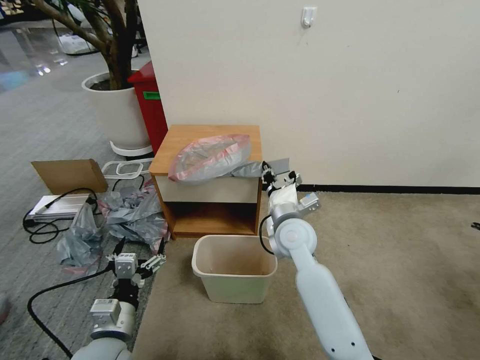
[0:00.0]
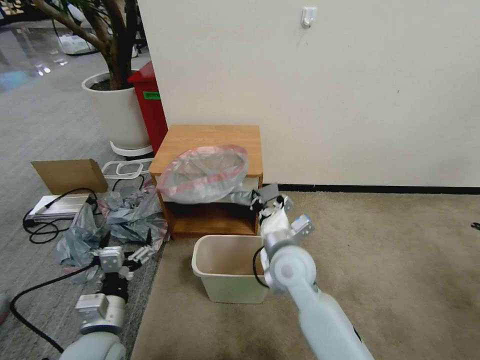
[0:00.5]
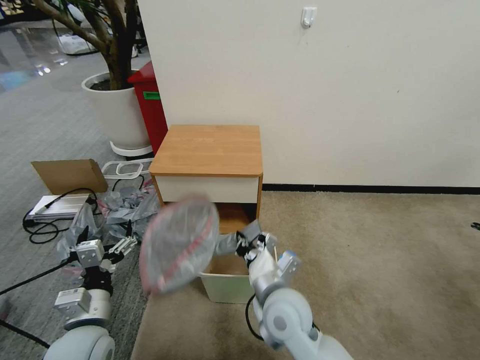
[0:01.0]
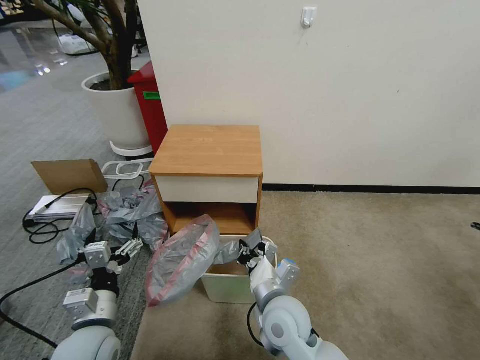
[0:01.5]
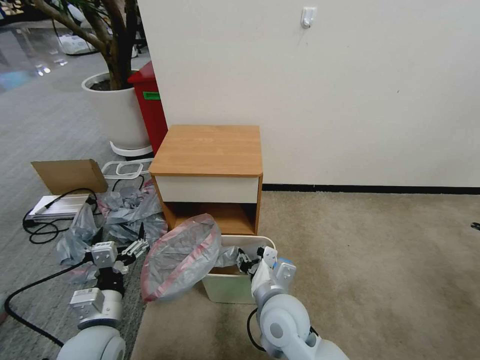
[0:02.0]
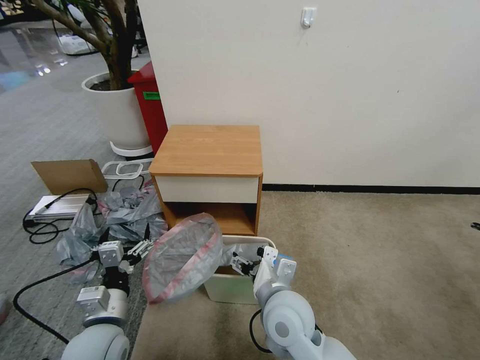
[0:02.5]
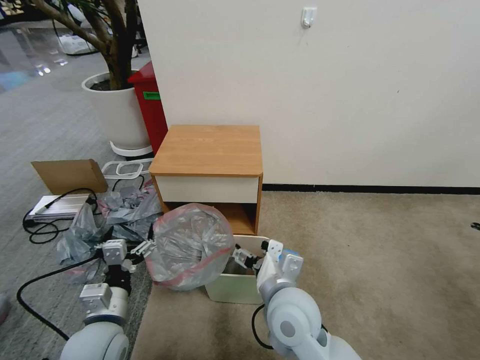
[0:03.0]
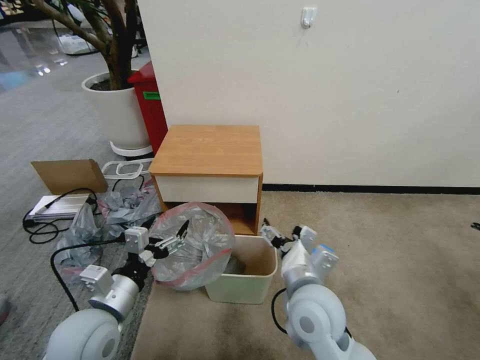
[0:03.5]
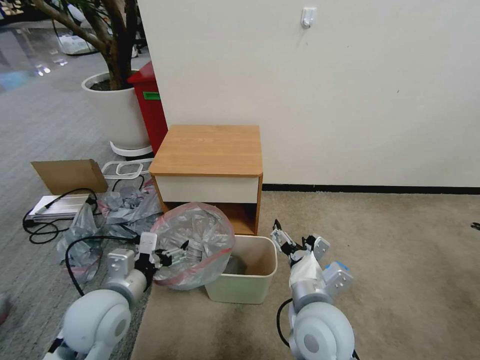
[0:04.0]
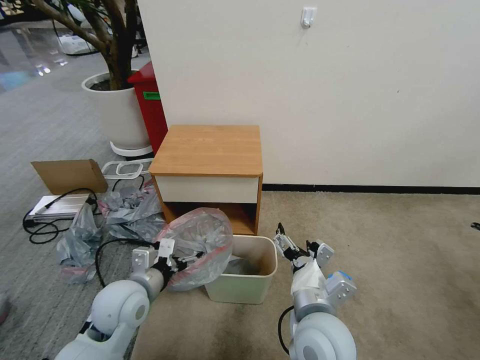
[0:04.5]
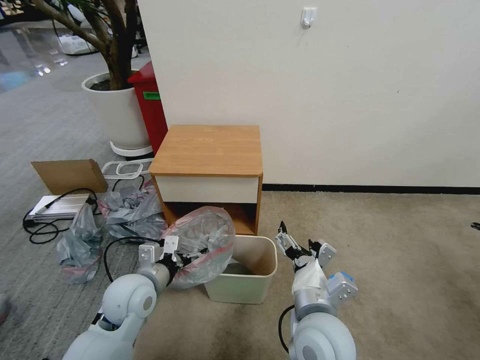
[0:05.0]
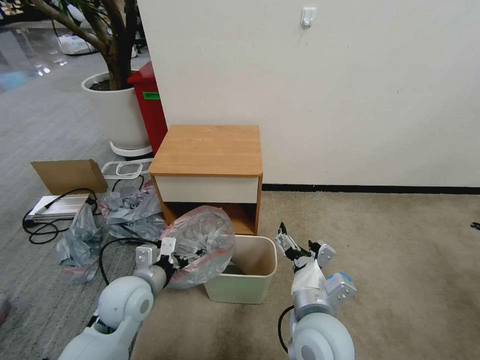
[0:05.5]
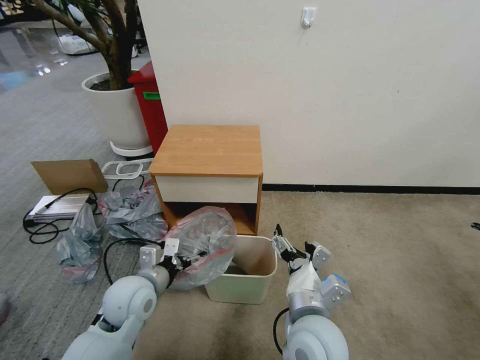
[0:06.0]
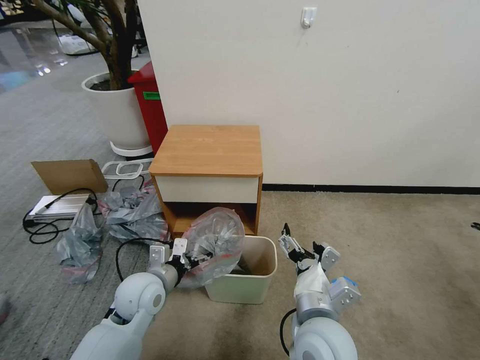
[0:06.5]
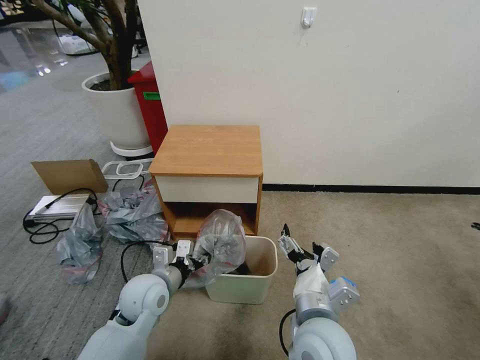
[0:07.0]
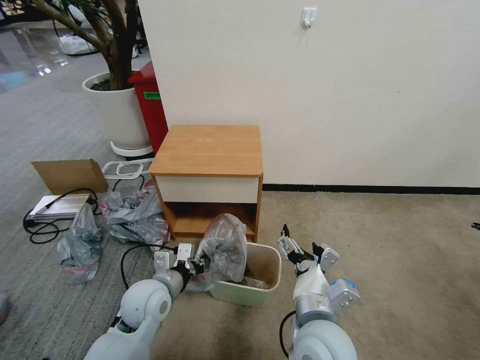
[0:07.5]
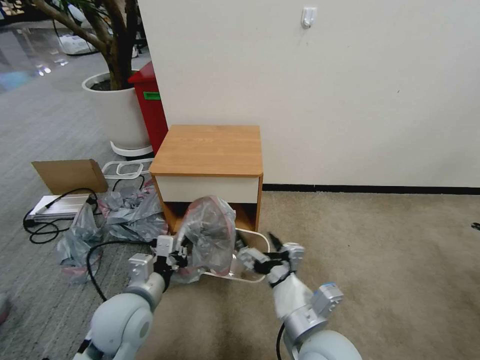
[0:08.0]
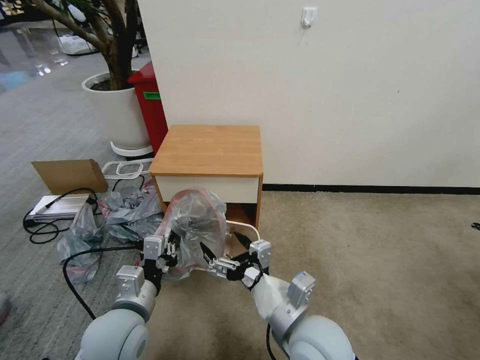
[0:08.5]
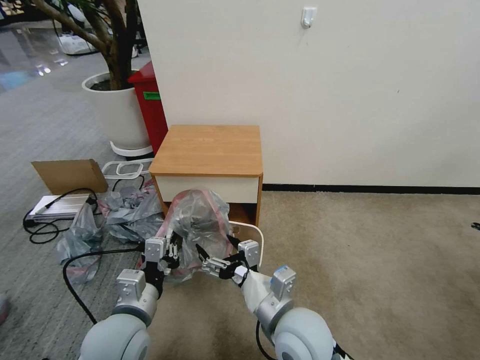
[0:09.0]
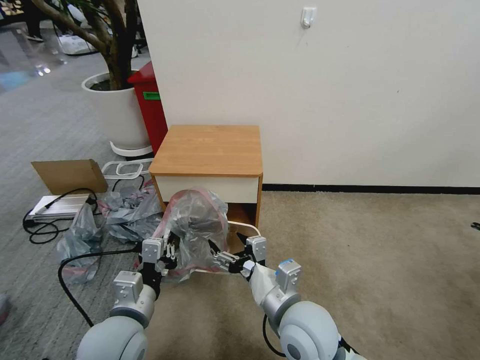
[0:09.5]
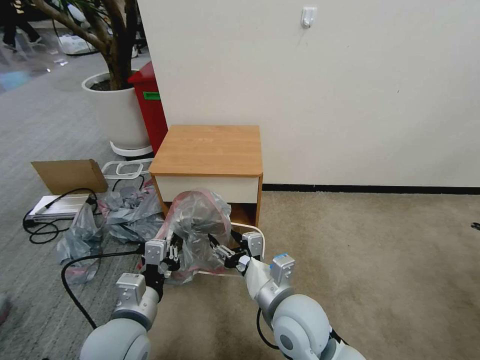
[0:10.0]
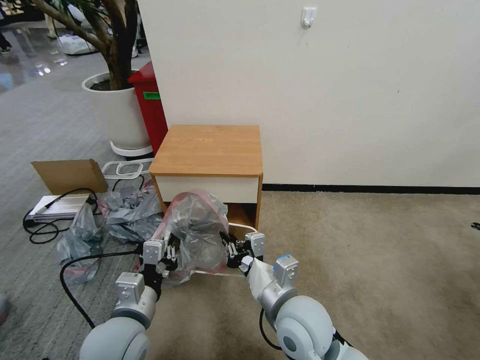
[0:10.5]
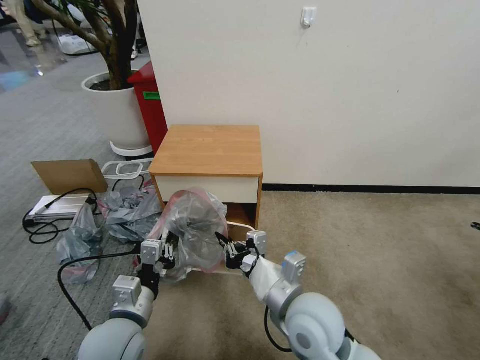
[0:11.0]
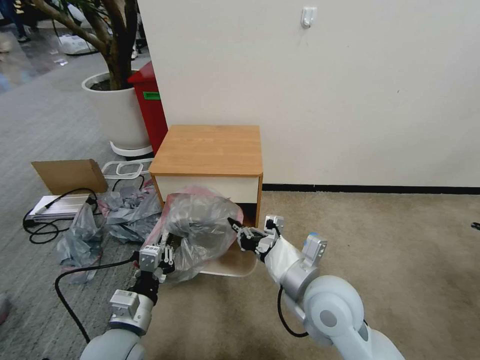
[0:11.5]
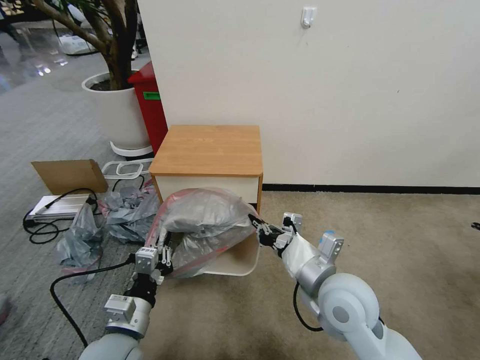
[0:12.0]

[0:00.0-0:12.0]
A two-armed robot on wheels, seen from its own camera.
Task of the whole recording: Pick up the garbage bag from the table and place it over the trash can.
0:00.0 to 0:02.0: The right gripper shifts roughly 15 cm backward, and opens its fingers.
0:02.0 to 0:04.0: The right gripper heads to the right, covering approximately 5 cm, and opens its fingers. The left gripper ends up some 5 cm from where it was.
0:04.0 to 0:06.0: The left gripper shifts by some 5 cm.
0:06.0 to 0:08.0: The left gripper heads backward, covering about 5 cm, and closes its fingers.
0:08.0 to 0:10.0: The right gripper is displaced forward by approximately 5 cm.
0:10.0 to 0:12.0: The right gripper shifts approximately 10 cm to the right, and closes its fingers.

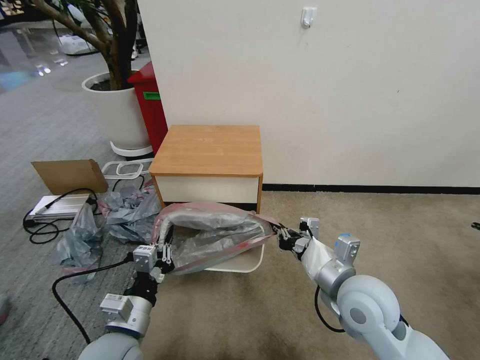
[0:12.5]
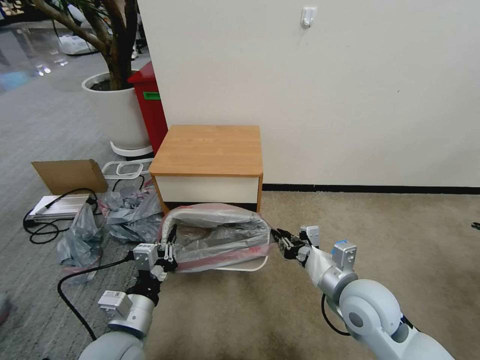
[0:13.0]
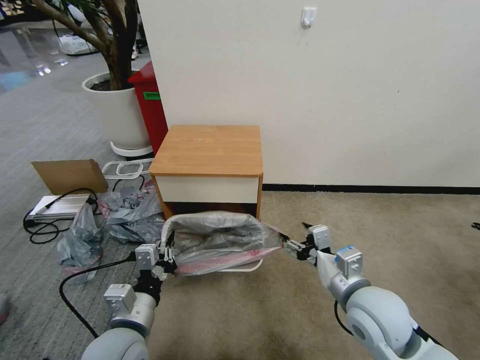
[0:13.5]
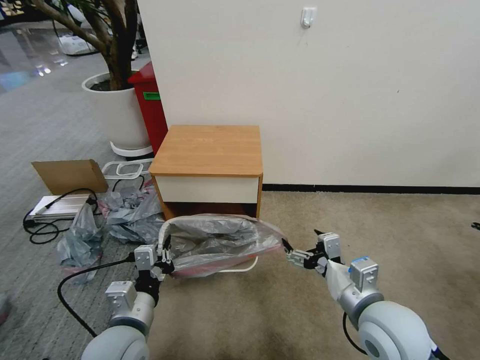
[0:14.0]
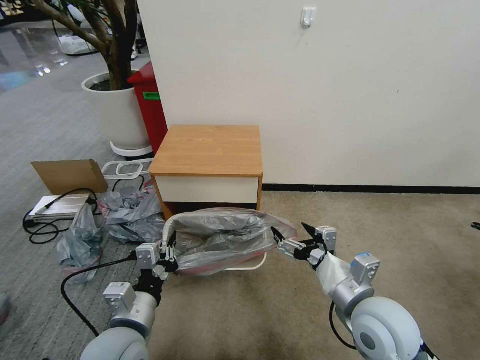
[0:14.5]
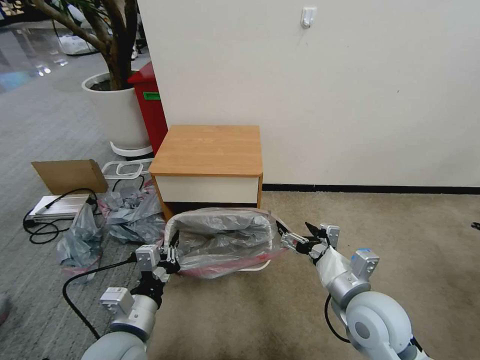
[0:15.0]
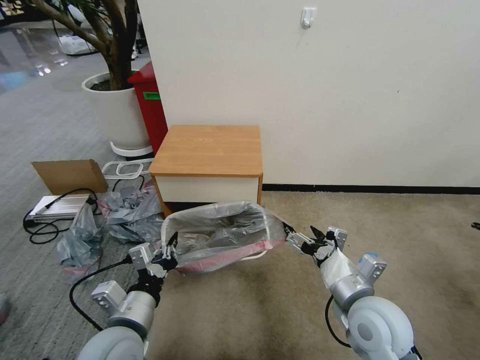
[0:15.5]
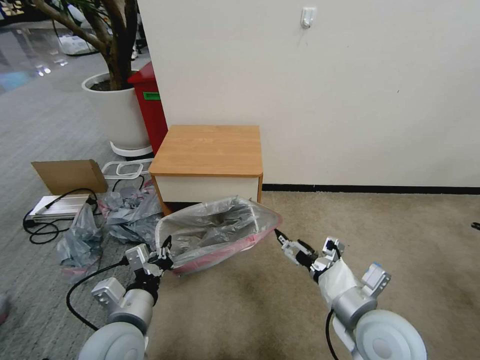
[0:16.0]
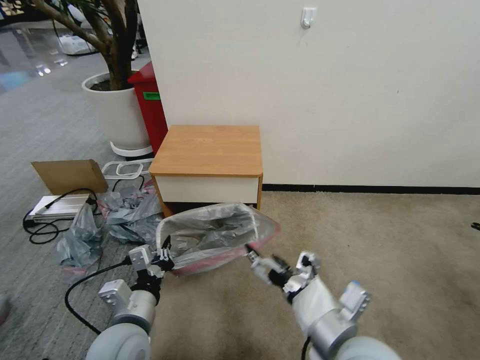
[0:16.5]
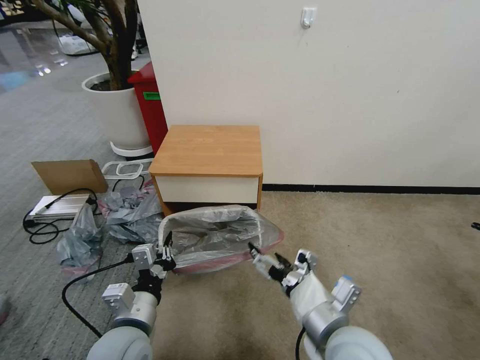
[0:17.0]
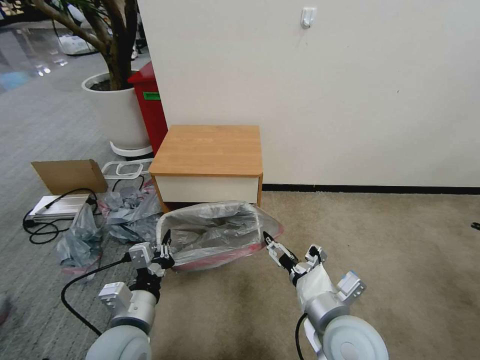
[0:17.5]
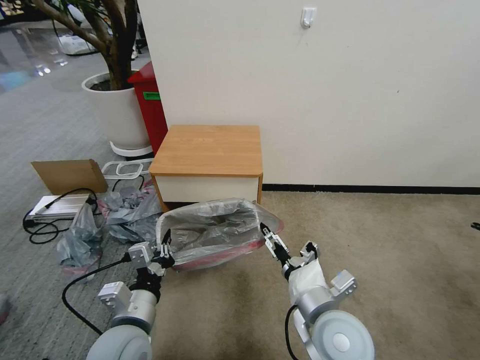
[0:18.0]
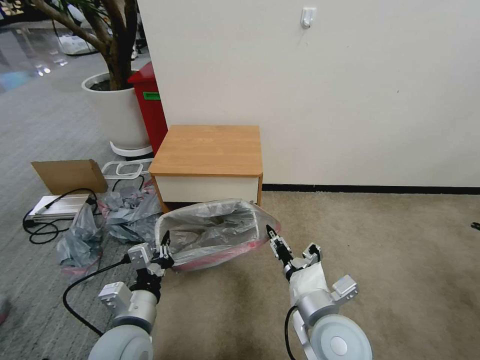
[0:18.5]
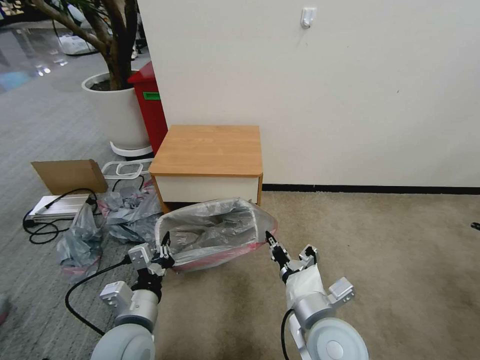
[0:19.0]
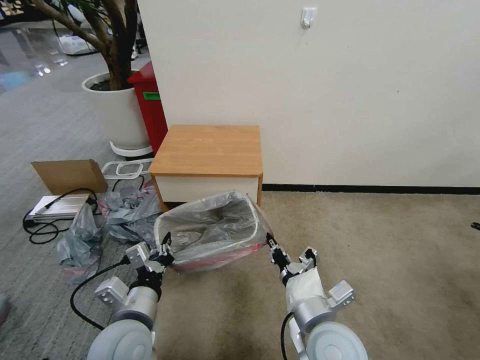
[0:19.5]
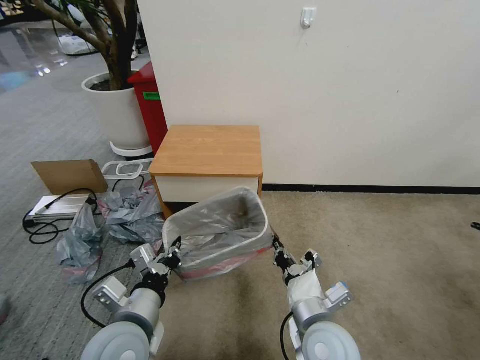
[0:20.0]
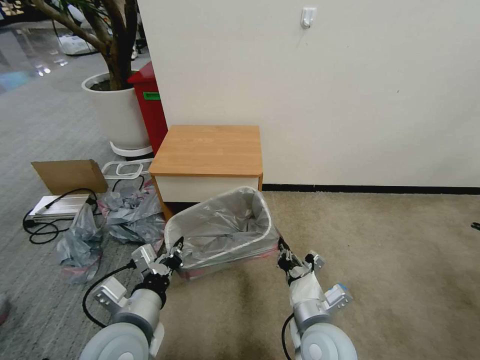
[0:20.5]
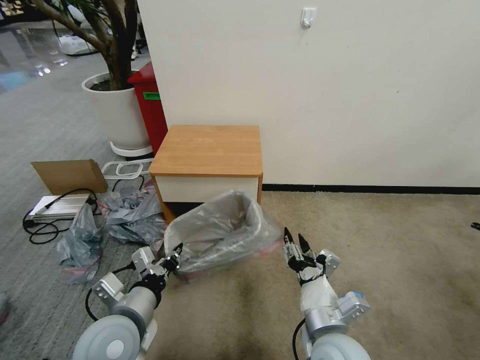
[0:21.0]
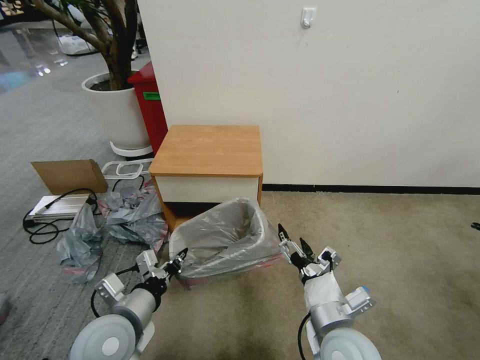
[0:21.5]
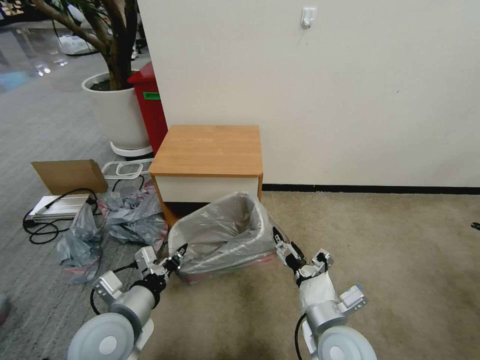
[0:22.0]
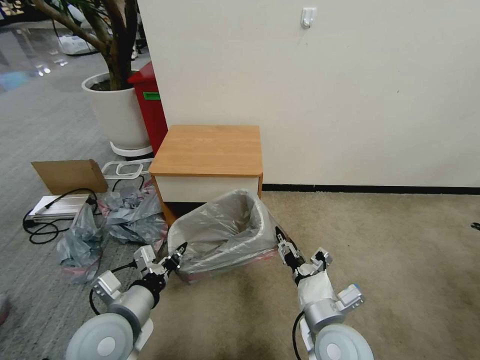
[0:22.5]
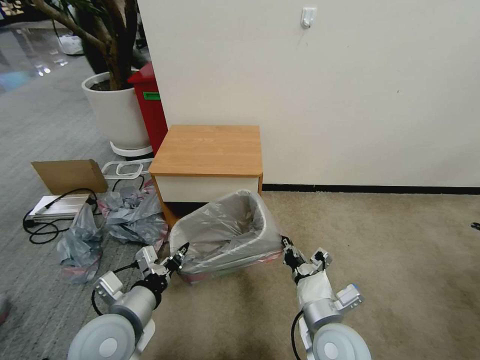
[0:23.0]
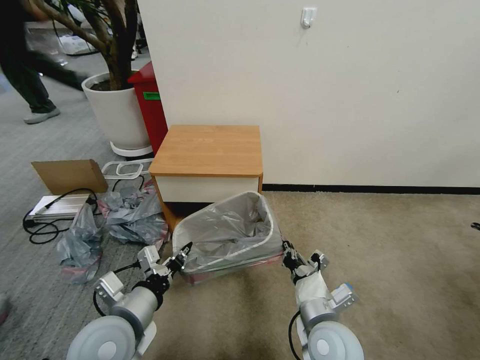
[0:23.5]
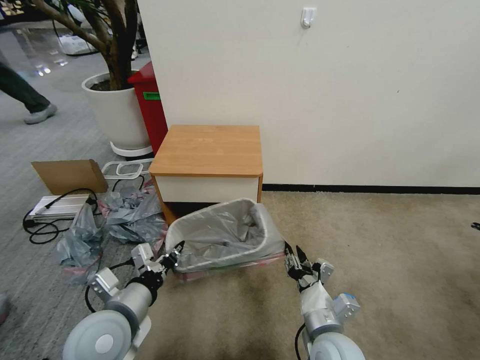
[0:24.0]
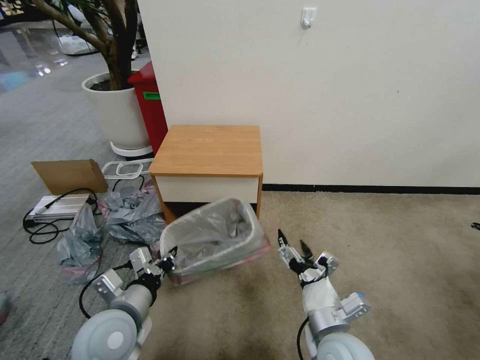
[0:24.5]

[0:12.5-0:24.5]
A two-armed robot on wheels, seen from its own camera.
Task of the whole recording: Pick up the garbage bag from the table and place it over the trash can.
0:12.5 to 0:14.5: The right gripper opens.
0:14.5 to 0:16.5: The right gripper travels backward and to the left by approximately 10 cm.
0:16.5 to 0:18.5: The right gripper moves downward, about 5 cm, and closes up.
0:18.5 to 0:20.5: The right gripper closes up.
0:20.5 to 0:22.5: The right gripper opens up.
0:22.5 to 0:24.5: The right gripper opens its fingers.

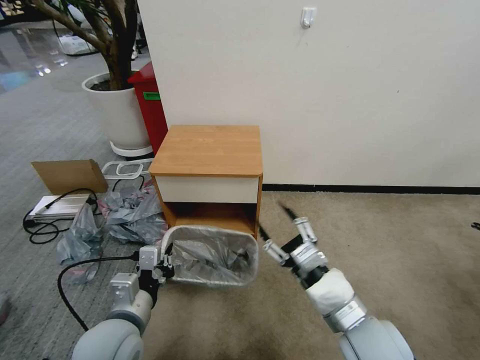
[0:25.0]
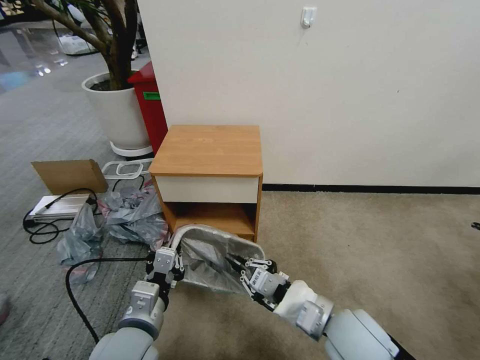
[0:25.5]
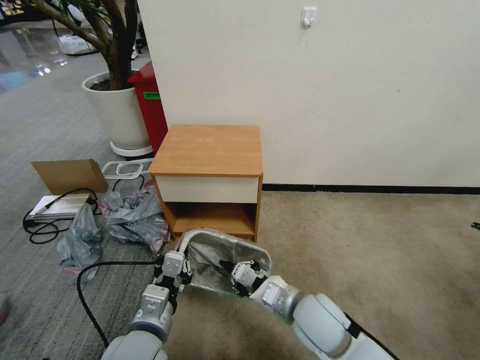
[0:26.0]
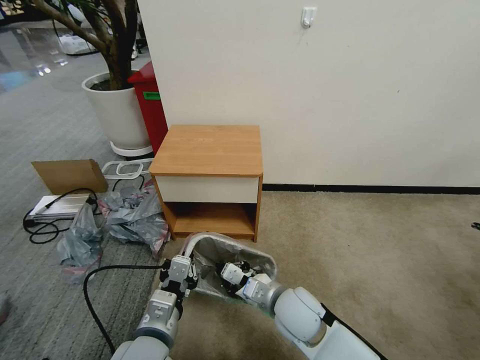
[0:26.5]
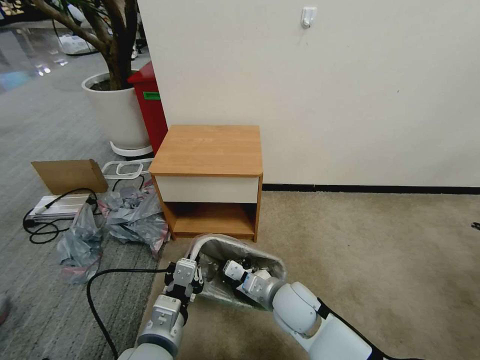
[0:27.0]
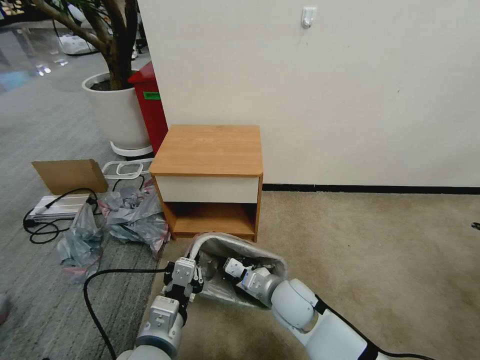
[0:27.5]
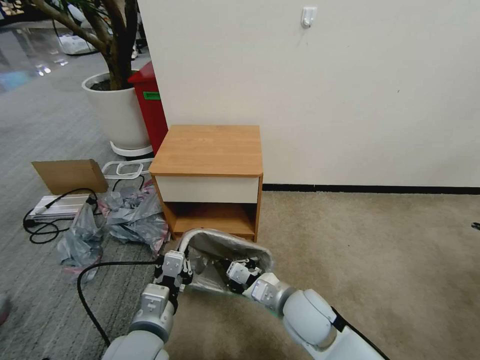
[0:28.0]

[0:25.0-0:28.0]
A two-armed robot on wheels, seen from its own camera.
Task of the whole recording: Pick up the garbage bag from the table and place it over the trash can.
0:25.0 to 0:26.5: The right gripper shifts some 15 cm to the left, downward and forward, and closes its fingers; the left gripper is displaced to the right by roughly 5 cm.
0:26.5 to 0:28.0: The grippers stay close to where they were, moving slightly.
